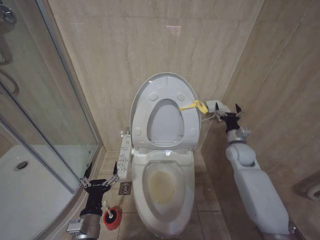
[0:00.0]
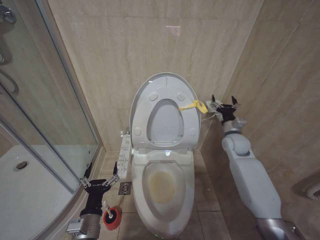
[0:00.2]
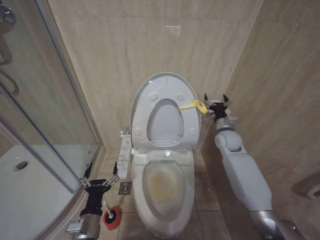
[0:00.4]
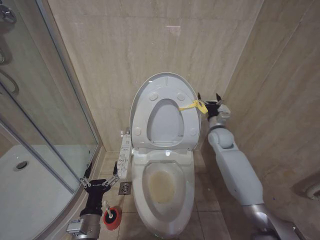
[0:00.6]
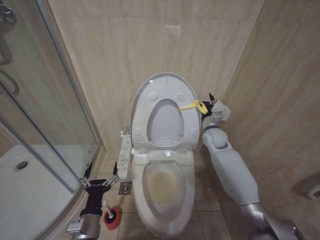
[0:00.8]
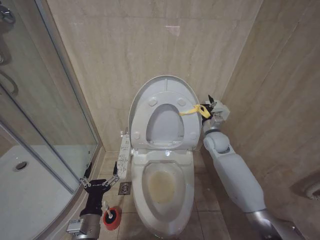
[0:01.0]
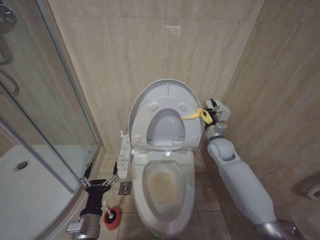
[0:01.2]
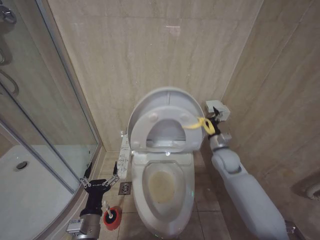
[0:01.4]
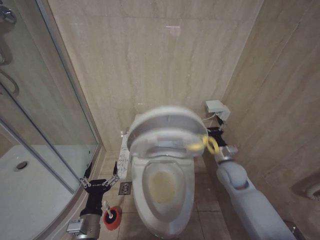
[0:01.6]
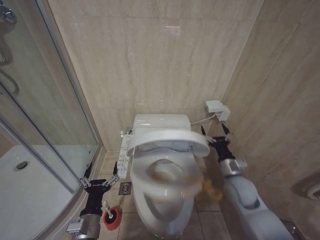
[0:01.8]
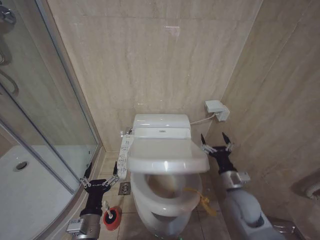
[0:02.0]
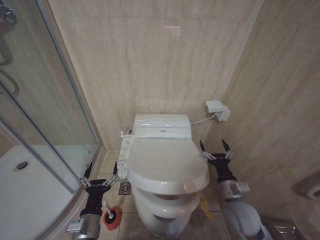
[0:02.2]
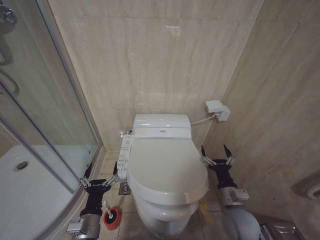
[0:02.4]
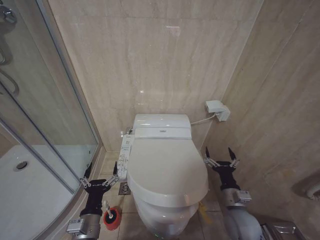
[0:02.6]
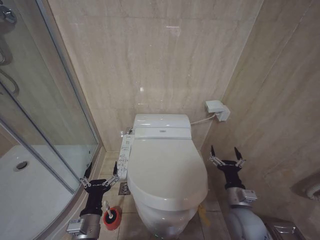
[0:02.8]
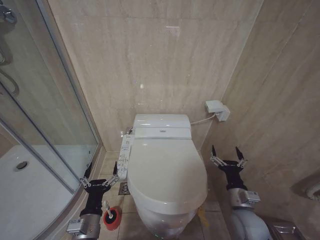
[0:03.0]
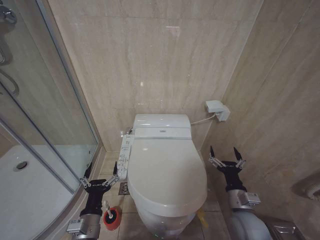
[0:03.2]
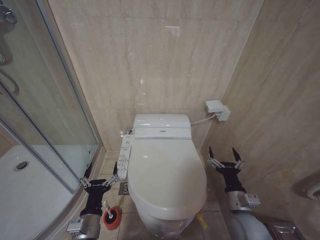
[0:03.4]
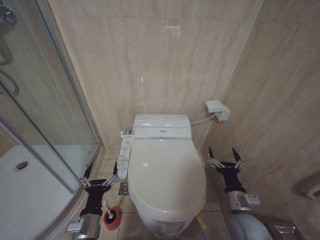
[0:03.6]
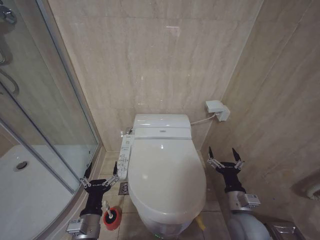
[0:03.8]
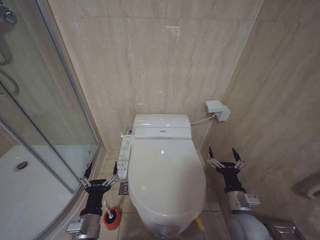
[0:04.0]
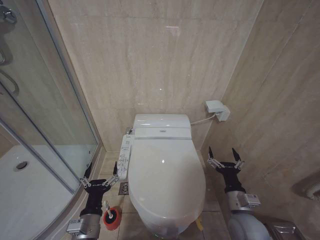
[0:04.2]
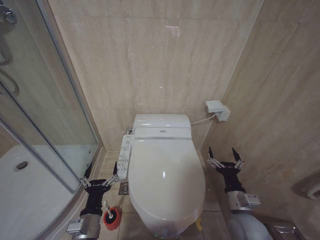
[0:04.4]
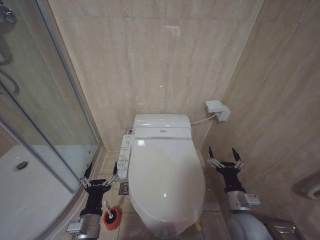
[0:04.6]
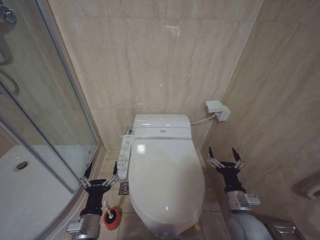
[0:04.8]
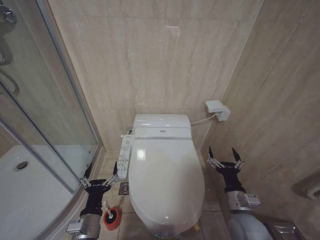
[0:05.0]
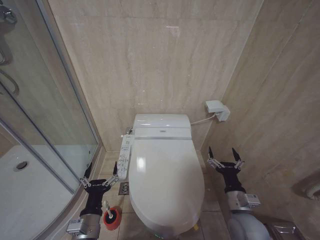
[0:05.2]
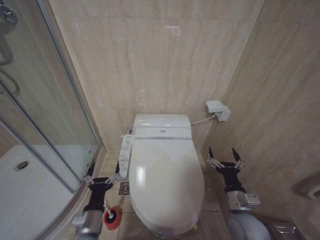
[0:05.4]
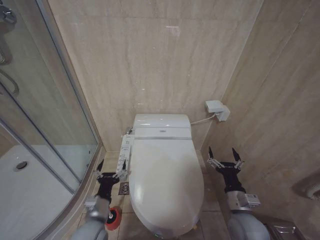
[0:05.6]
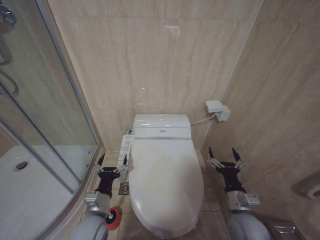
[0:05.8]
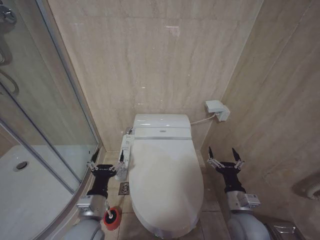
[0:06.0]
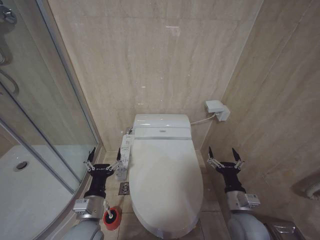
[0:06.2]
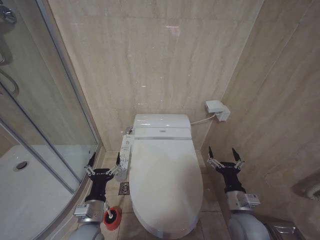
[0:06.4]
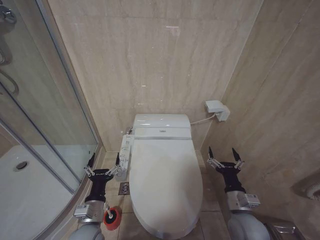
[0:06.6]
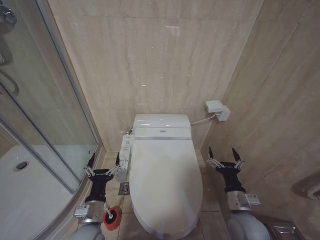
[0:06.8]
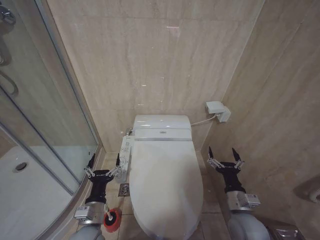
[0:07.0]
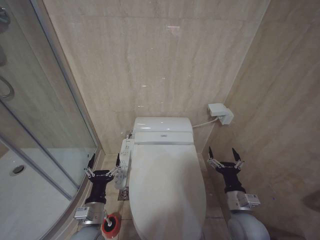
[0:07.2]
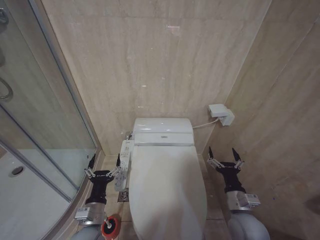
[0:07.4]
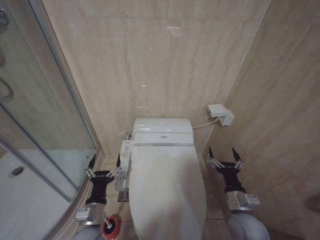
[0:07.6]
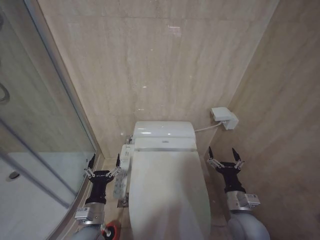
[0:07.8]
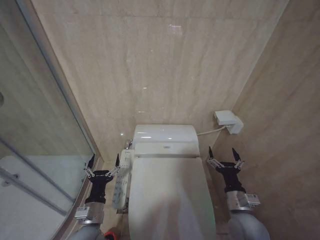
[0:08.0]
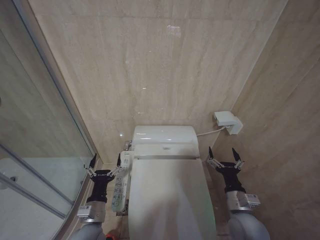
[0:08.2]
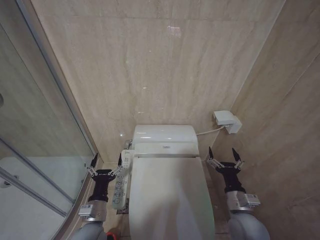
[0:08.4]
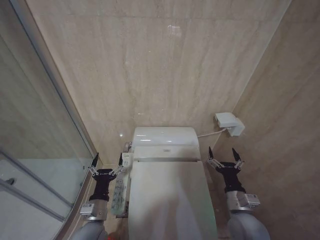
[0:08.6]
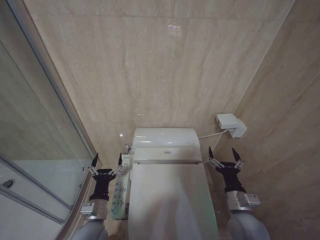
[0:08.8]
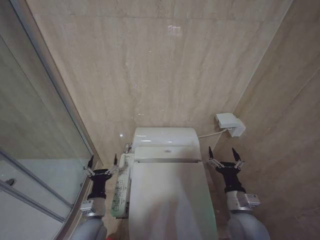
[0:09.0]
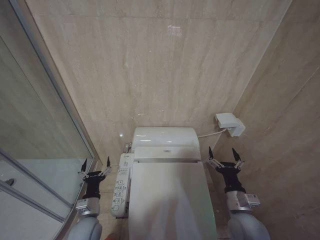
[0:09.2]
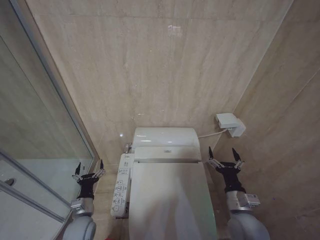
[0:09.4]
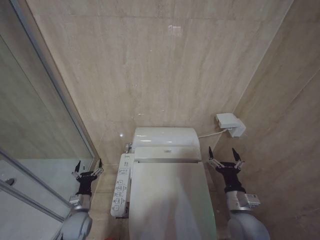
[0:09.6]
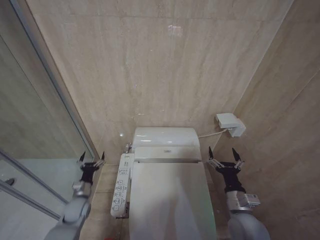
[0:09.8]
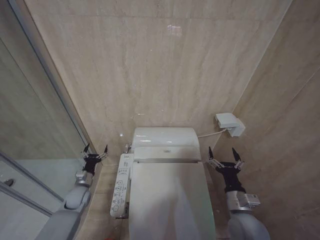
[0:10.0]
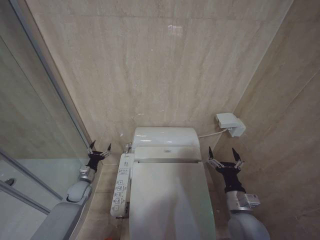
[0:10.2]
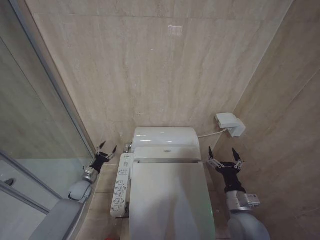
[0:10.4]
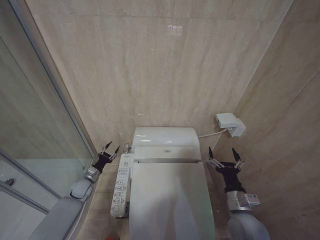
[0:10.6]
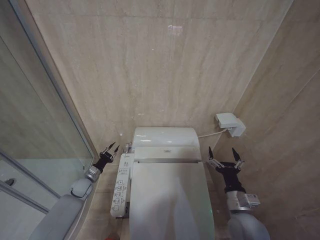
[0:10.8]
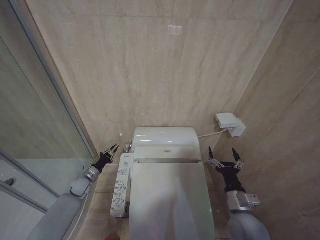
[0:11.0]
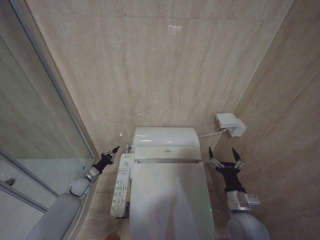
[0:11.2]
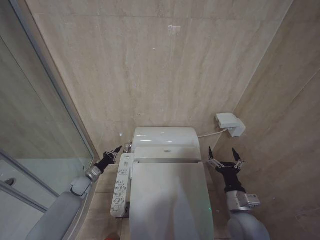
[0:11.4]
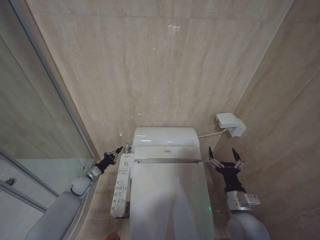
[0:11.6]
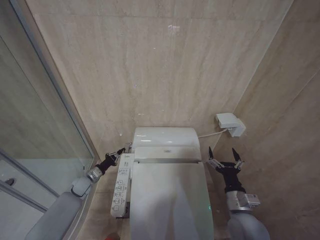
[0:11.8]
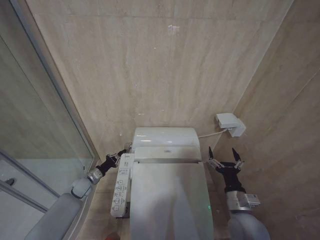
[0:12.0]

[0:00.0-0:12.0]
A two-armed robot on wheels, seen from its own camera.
Task of the whole recording: Open the toilet lid, clean the toilet bowl with a toilet brush, close the toilet lid, and flush.
0:00.0 to 0:01.6: The right gripper shifts some 10 cm to the left and backward.
0:01.6 to 0:03.0: The right gripper is displaced backward by some 15 cm.
0:03.0 to 0:04.4: The grippers move only a little.
0:04.4 to 0:06.0: The left gripper moves approximately 5 cm.
0:06.0 to 0:07.6: The grippers move only a little.
0:07.6 to 0:09.0: The grippers make only small movements.
0:09.0 to 0:10.4: The left gripper heads forward, to the left and downward, covering roughly 25 cm.
0:10.4 to 0:12.0: The left gripper closes up.

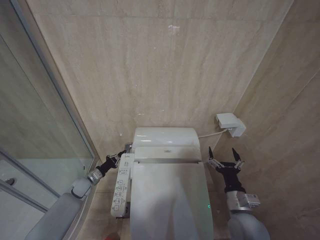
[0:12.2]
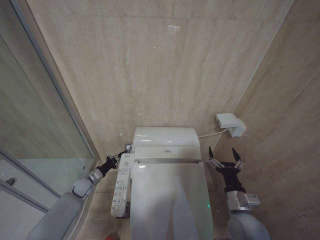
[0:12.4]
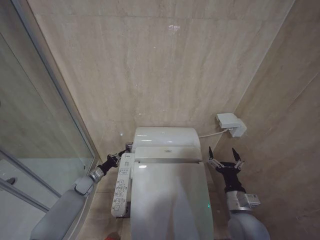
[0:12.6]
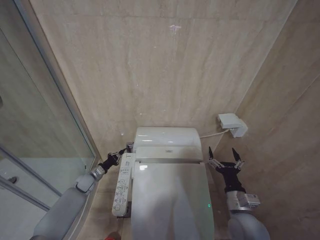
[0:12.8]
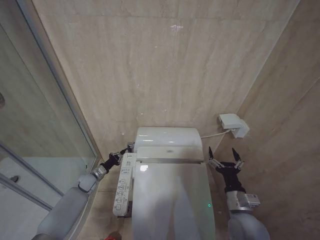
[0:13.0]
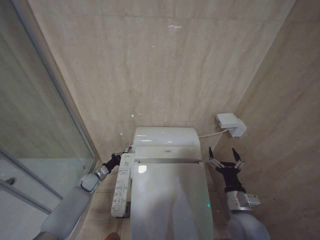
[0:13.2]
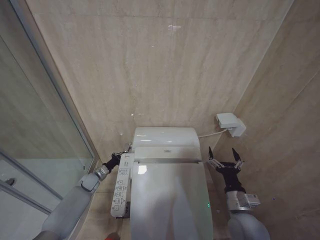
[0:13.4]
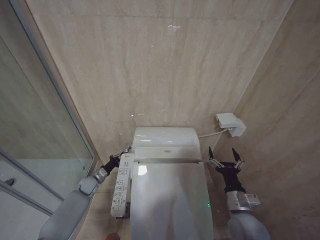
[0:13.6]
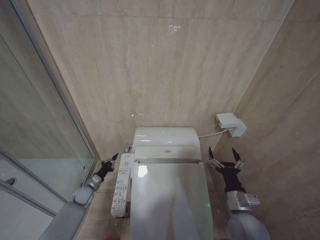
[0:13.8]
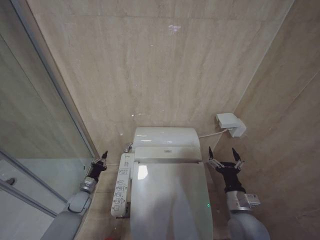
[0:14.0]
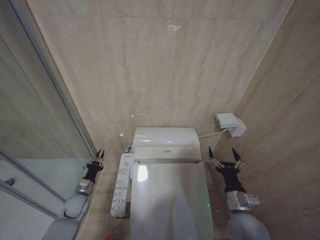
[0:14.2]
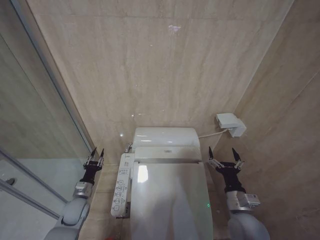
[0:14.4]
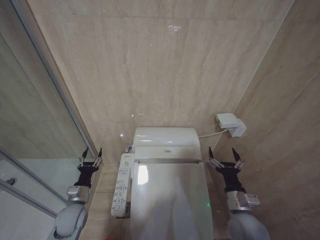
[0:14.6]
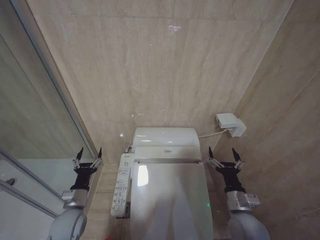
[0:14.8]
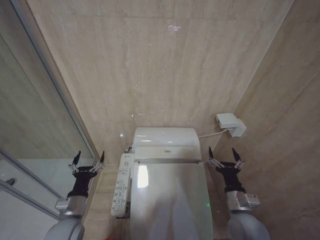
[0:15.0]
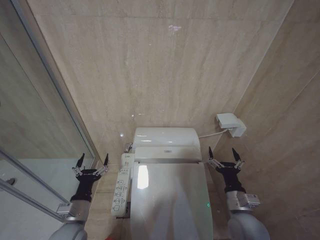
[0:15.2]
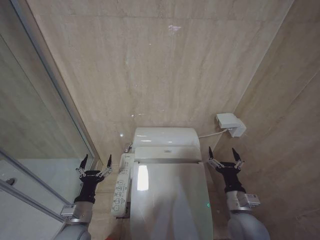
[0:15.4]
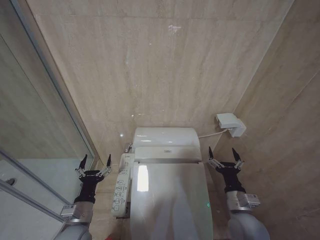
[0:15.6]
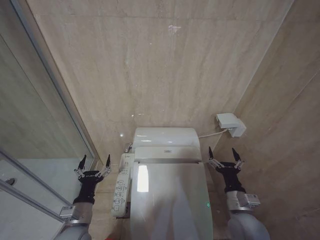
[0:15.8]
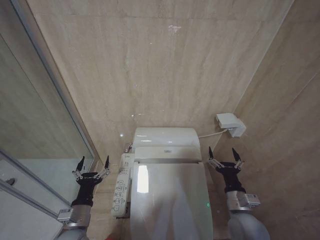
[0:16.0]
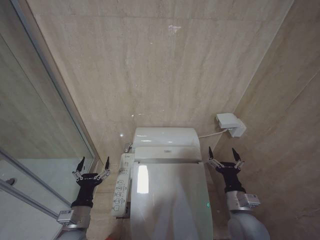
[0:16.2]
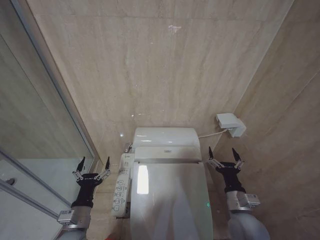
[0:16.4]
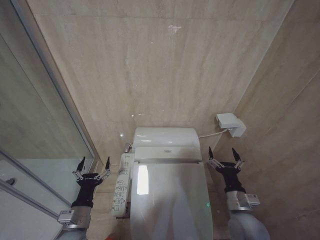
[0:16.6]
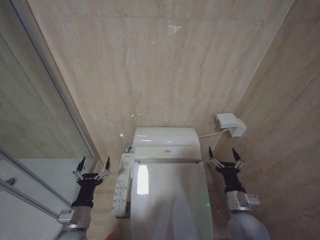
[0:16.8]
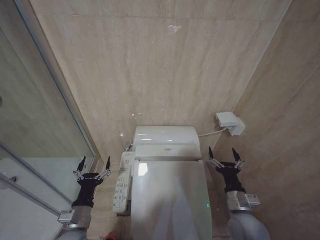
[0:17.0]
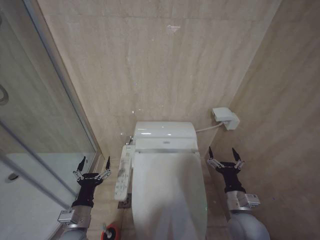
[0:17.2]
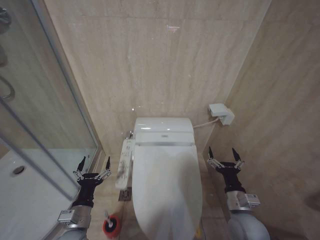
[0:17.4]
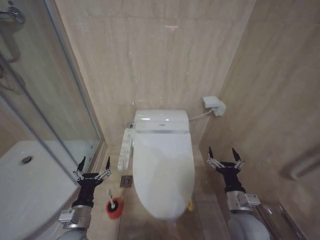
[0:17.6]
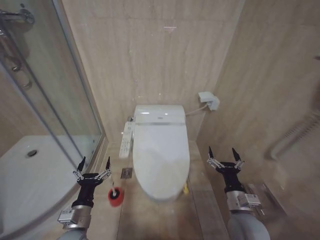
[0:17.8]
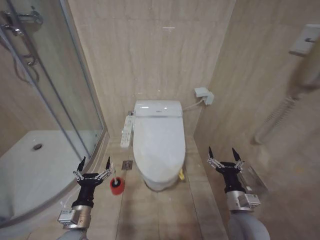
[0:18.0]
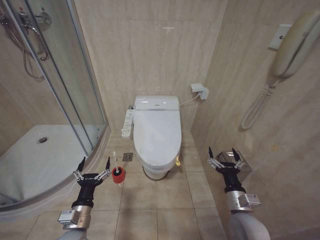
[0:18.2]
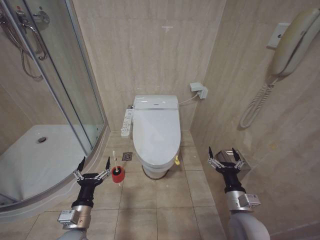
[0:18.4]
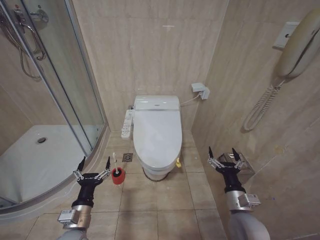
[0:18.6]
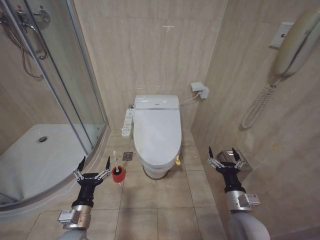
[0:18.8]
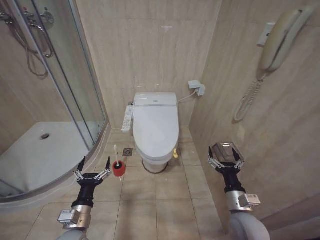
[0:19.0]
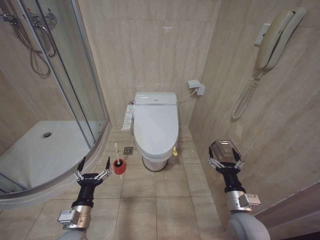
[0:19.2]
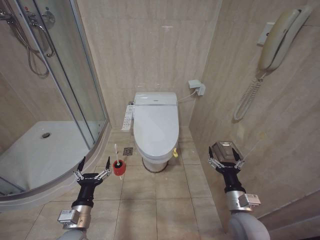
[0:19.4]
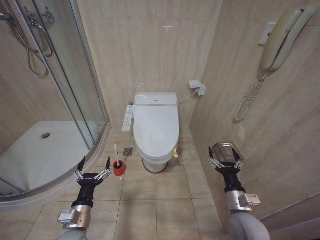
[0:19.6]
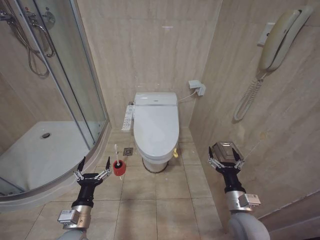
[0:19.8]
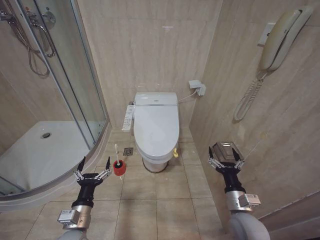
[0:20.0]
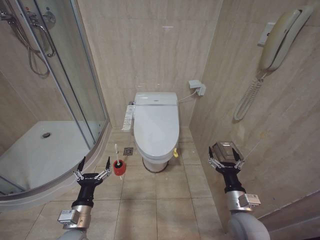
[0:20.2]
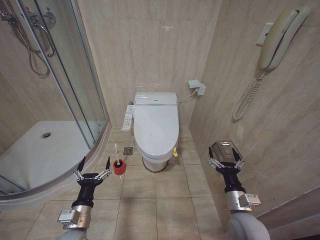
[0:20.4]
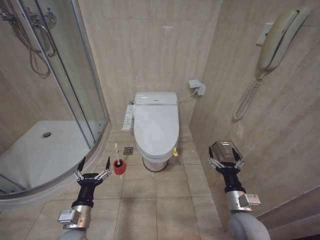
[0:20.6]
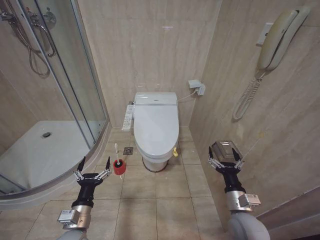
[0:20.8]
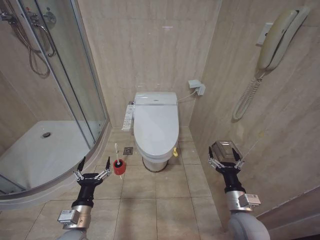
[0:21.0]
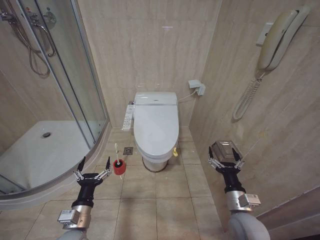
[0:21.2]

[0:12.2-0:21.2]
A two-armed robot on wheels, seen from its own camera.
Task of the whole recording: Open the toilet lid, clean the toilet bowl with a toilet brush, close the toilet lid, and flush.
0:12.2 to 0:13.8: There are only small adjustments of the grippers.
0:13.8 to 0:15.2: The left gripper moves backward and upward, some 25 cm, and opens its fingers.
0:15.2 to 0:16.6: The grippers stay close to where they were, moving slightly.
0:18.2 to 0:21.2: The two grippers keep their place.

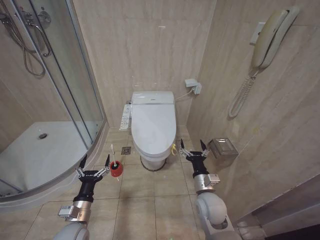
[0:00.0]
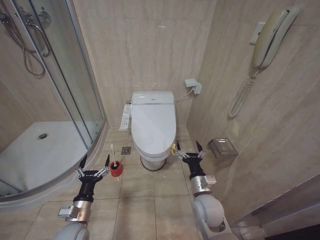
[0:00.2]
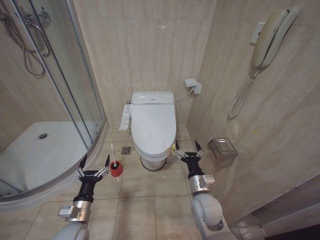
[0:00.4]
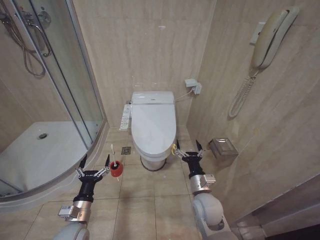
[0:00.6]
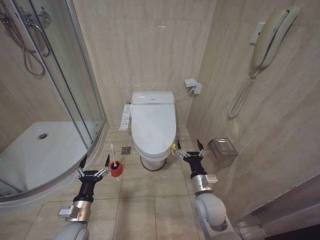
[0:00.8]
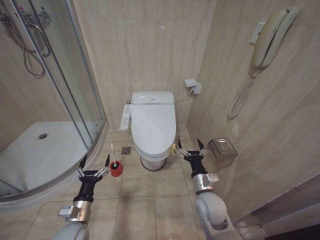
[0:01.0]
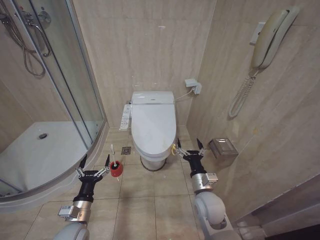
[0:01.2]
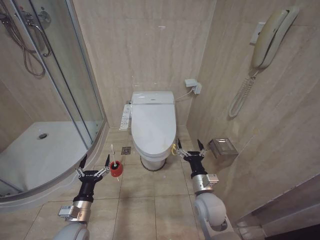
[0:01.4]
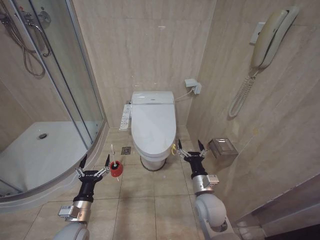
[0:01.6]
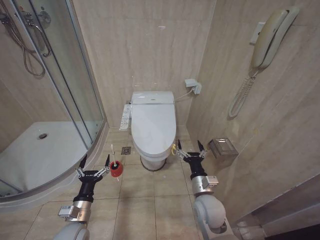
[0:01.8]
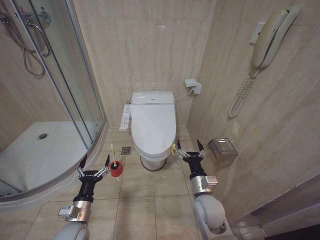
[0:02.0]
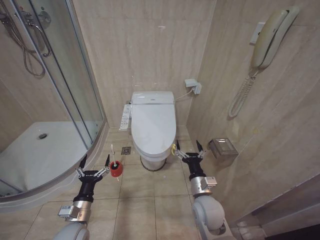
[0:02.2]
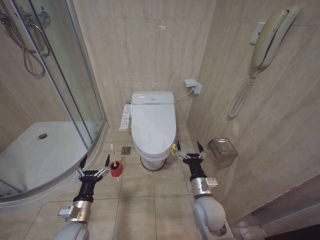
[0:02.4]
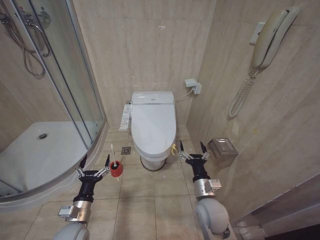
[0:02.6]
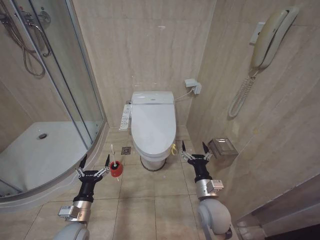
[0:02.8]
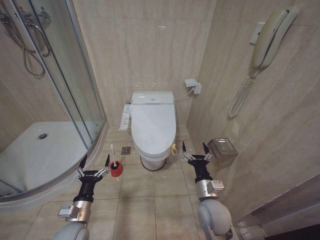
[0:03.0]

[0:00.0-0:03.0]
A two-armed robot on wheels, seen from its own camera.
Task of the whole recording: Open the toilet lid, clean the toilet bowl with a toilet brush, close the toilet lid, and flush.
0:01.6 to 0:03.0: The grippers stay close to where they were, moving slightly.
